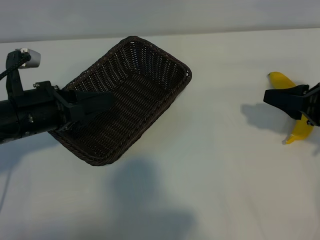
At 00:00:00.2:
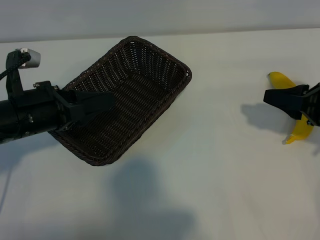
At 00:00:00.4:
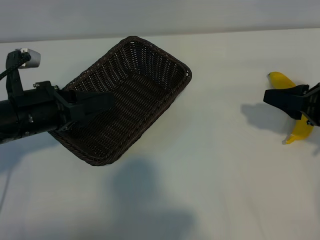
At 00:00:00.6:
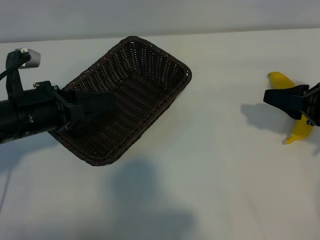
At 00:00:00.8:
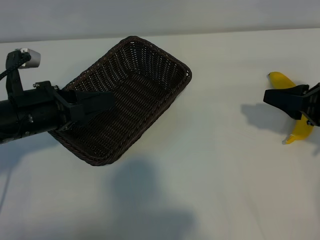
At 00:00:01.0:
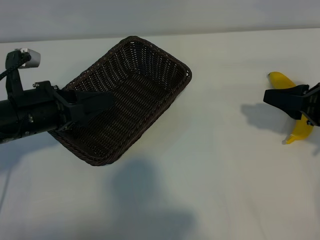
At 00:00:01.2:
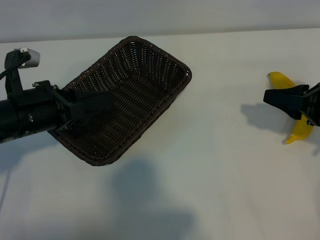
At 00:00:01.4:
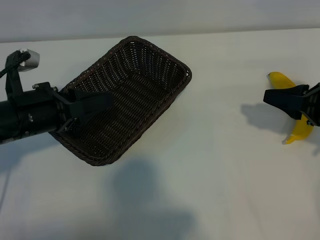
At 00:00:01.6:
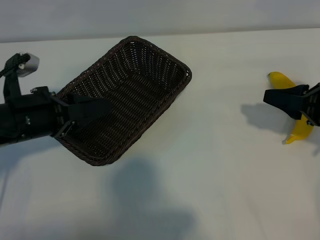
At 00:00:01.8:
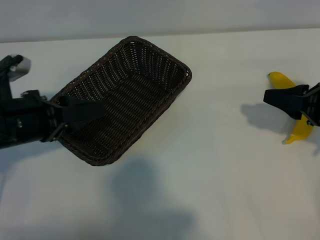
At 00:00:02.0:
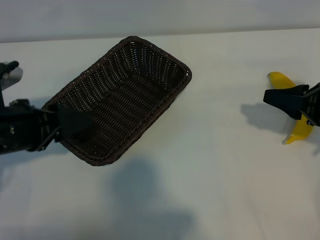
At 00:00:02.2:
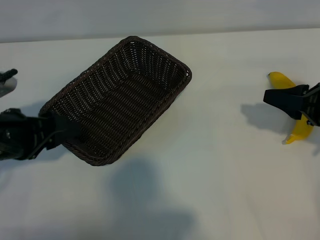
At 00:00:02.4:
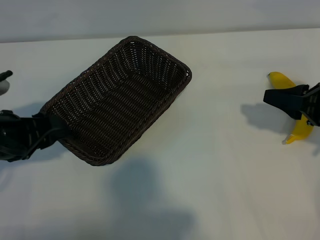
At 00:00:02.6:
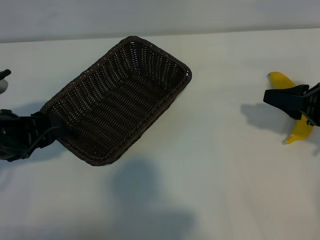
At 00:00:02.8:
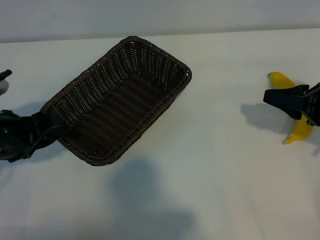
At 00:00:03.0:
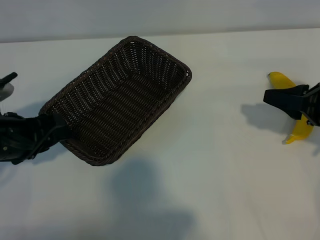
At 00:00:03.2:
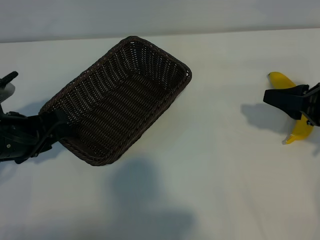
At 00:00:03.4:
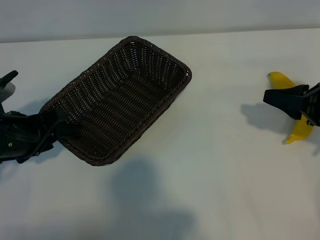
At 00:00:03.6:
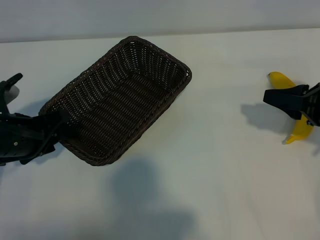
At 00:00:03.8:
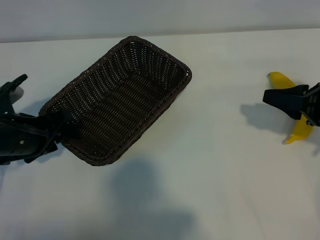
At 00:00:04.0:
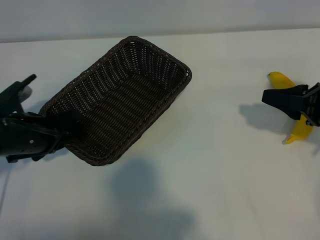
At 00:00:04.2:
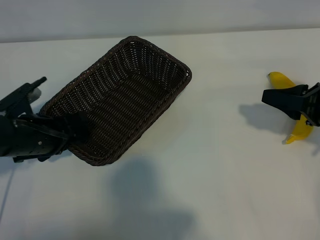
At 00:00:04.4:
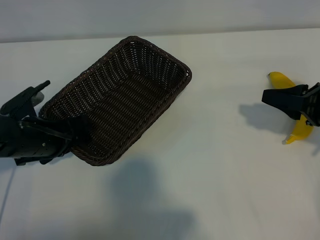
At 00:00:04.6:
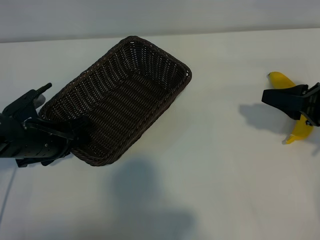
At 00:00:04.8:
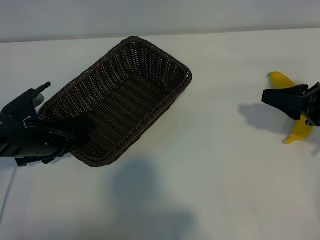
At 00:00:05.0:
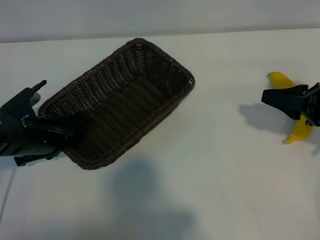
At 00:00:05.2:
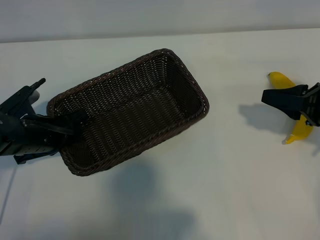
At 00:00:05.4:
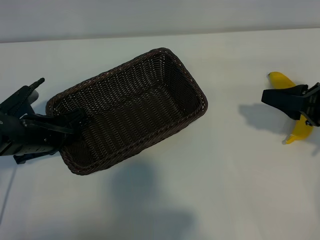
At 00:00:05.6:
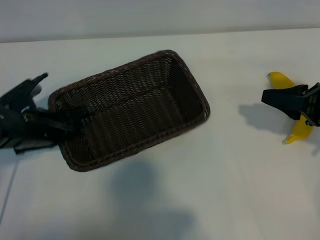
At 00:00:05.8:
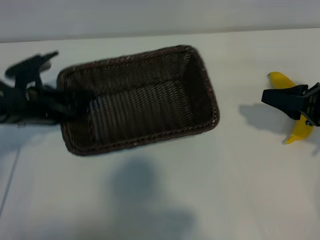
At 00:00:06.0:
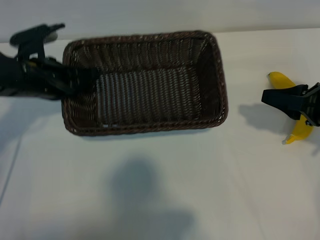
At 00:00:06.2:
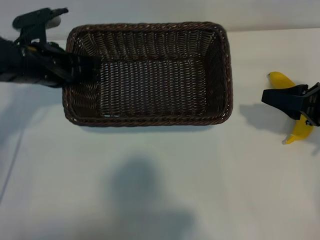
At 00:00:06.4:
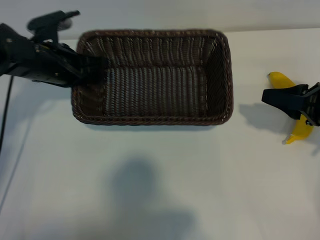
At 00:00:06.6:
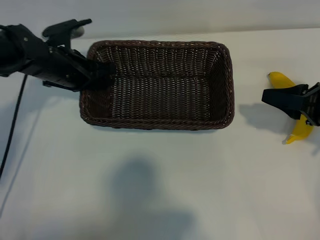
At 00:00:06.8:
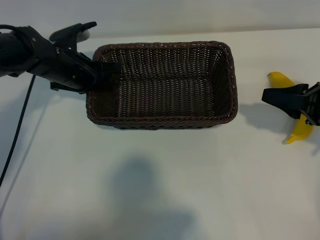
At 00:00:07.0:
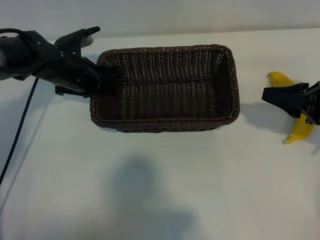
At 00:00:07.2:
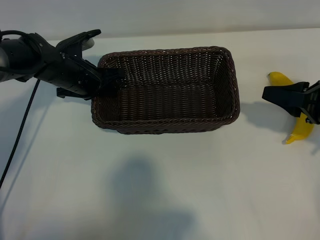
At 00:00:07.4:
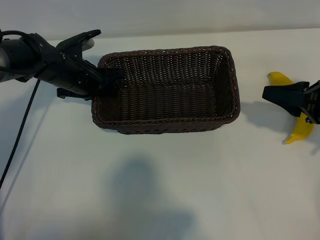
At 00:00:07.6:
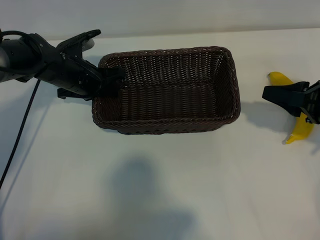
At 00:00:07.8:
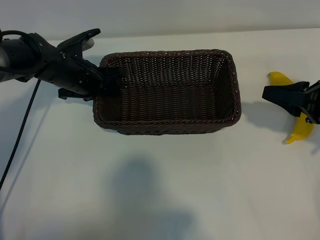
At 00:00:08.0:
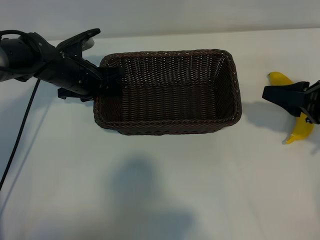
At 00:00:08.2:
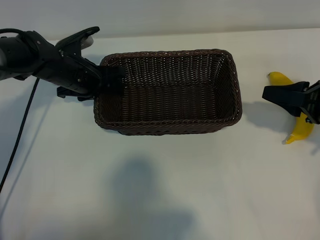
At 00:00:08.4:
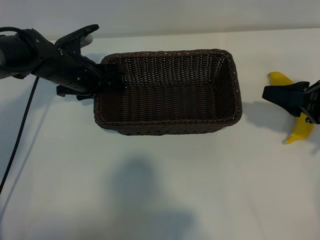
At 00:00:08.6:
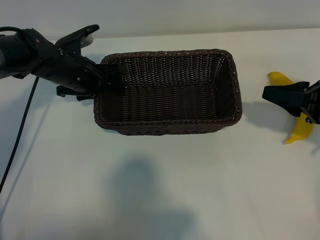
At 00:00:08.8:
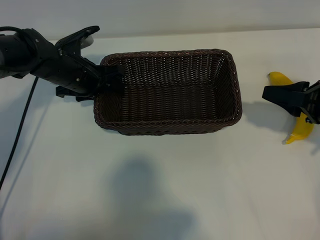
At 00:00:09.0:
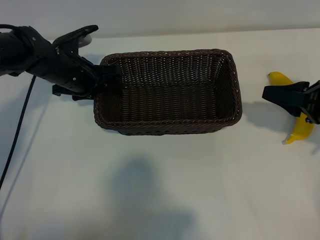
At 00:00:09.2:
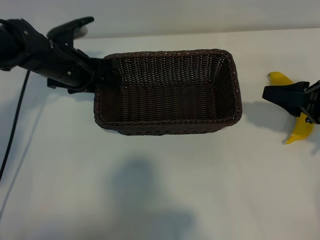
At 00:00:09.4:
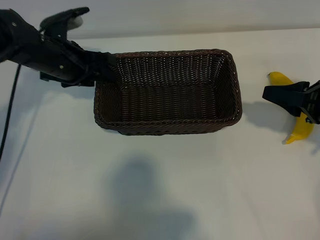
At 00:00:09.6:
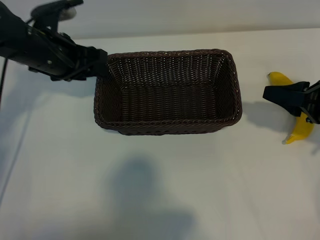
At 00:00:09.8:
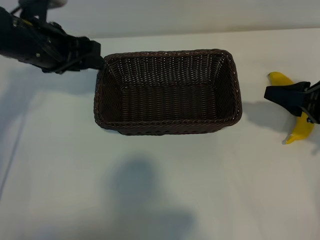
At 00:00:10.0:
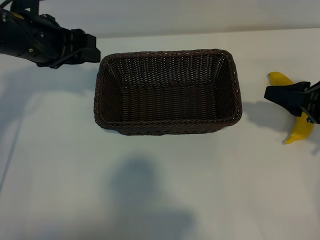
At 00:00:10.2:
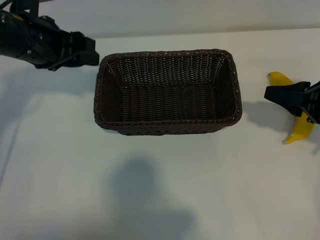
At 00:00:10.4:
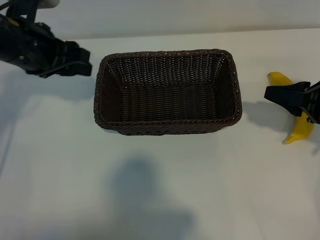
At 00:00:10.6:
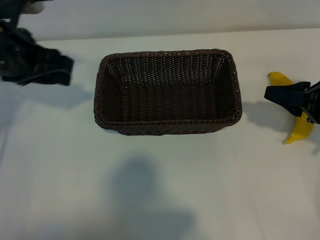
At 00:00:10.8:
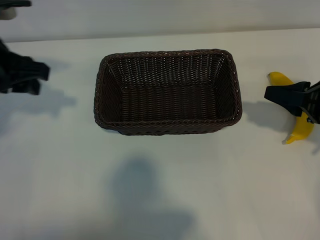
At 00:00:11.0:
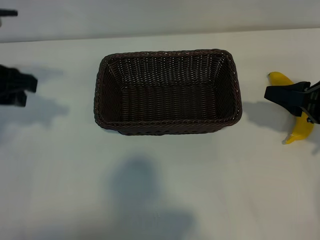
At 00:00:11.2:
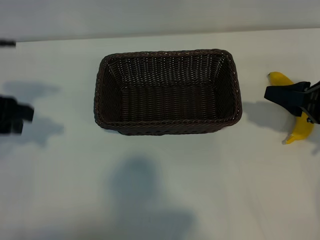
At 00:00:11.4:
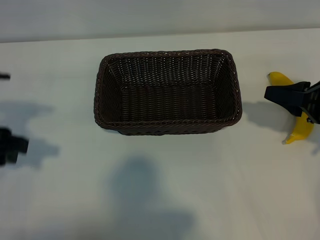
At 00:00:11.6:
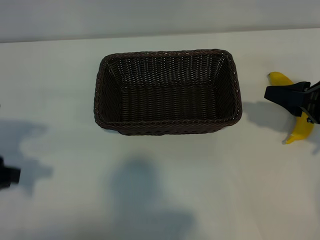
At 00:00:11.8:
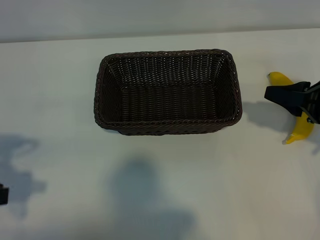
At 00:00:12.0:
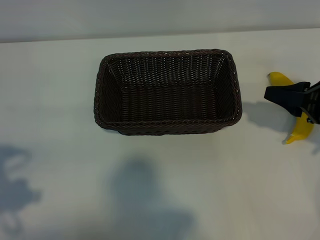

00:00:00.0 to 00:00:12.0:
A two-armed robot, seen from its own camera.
Task of the whole recording: pick up the banana and put it into the basket.
Step, 00:00:01.0 to 00:00:05.4: Grasp the basket with the left gripper.
Step, 00:00:05.6 to 00:00:09.2: Place the basket in the center of the table with the left gripper.

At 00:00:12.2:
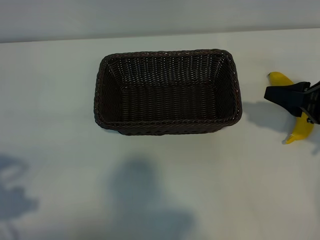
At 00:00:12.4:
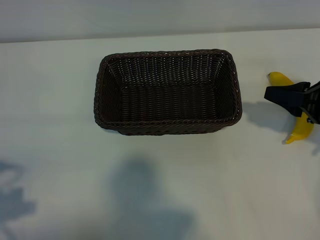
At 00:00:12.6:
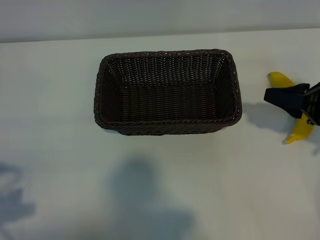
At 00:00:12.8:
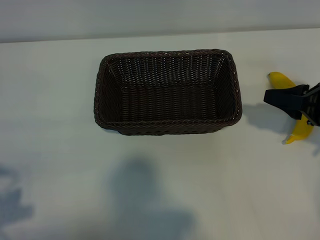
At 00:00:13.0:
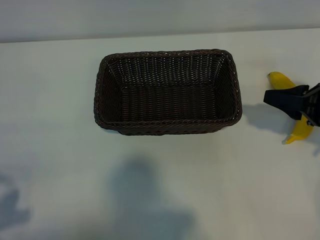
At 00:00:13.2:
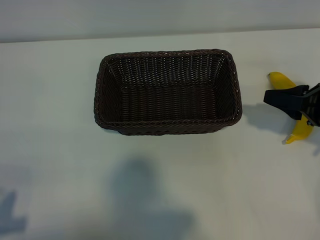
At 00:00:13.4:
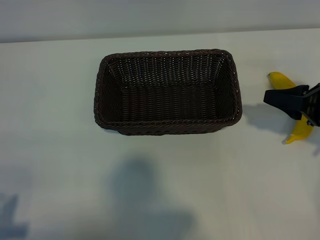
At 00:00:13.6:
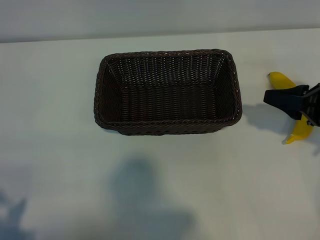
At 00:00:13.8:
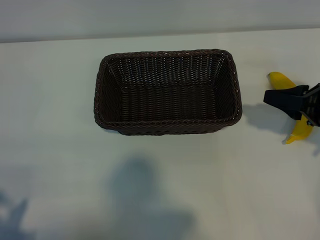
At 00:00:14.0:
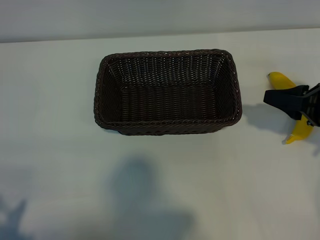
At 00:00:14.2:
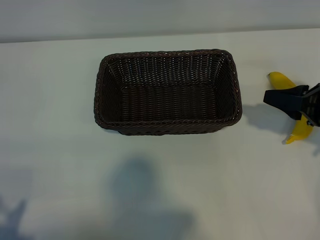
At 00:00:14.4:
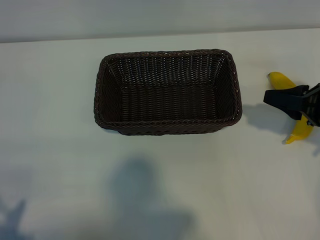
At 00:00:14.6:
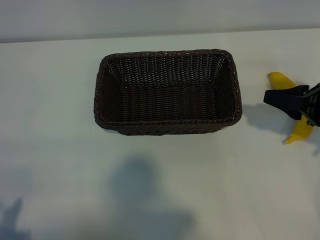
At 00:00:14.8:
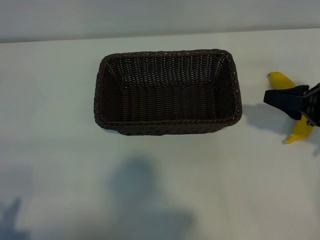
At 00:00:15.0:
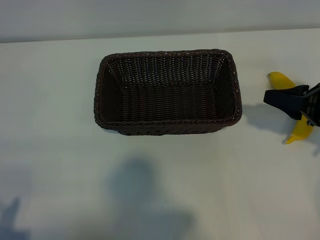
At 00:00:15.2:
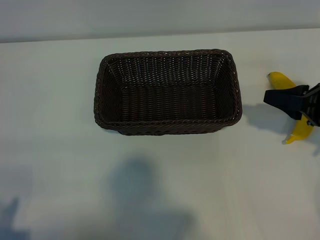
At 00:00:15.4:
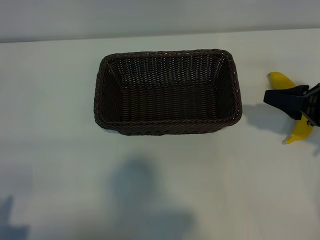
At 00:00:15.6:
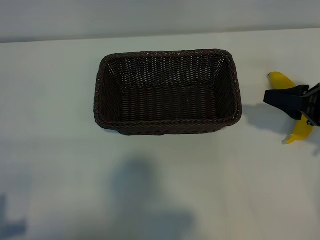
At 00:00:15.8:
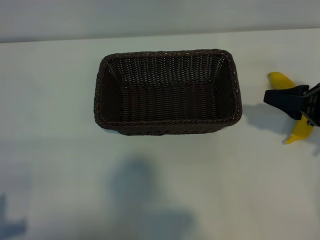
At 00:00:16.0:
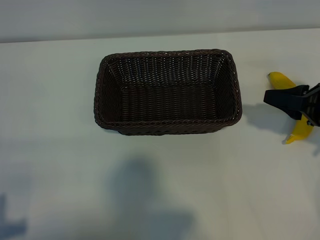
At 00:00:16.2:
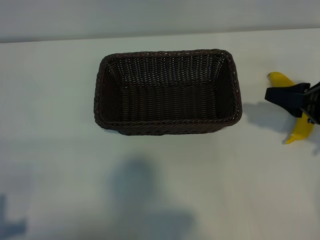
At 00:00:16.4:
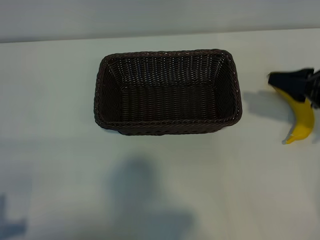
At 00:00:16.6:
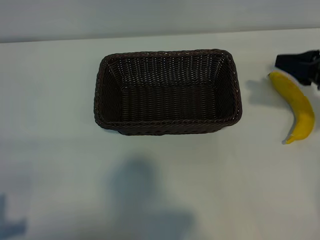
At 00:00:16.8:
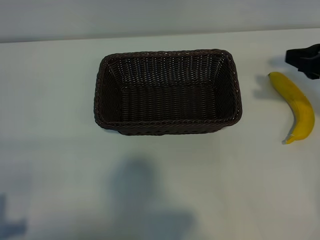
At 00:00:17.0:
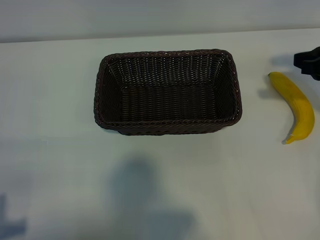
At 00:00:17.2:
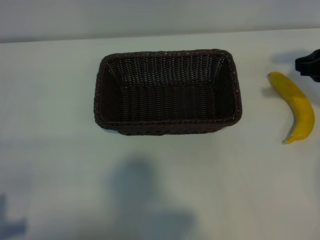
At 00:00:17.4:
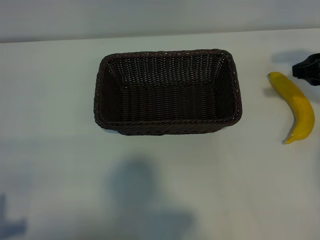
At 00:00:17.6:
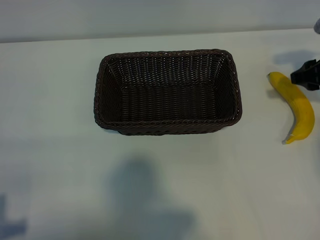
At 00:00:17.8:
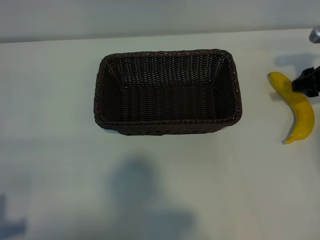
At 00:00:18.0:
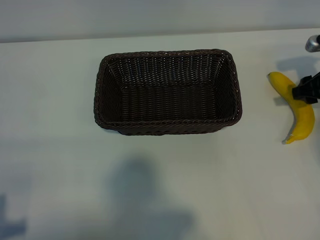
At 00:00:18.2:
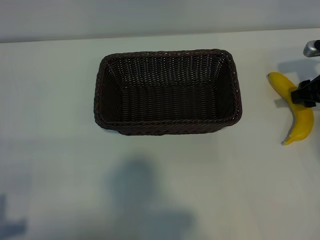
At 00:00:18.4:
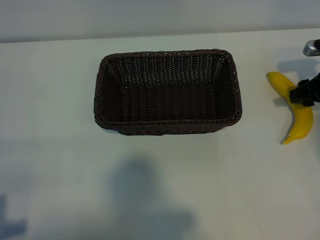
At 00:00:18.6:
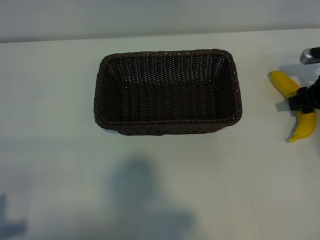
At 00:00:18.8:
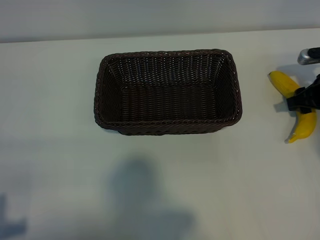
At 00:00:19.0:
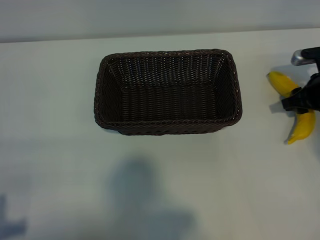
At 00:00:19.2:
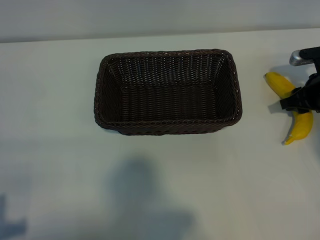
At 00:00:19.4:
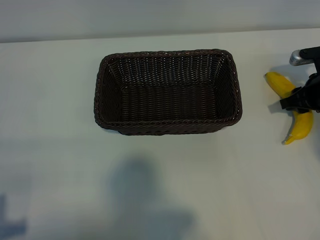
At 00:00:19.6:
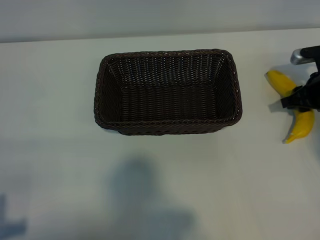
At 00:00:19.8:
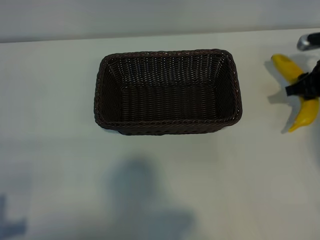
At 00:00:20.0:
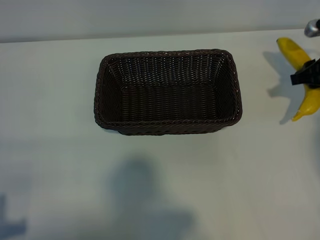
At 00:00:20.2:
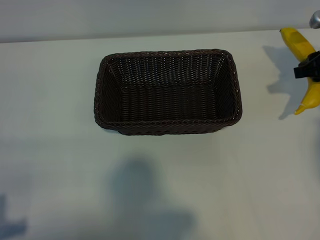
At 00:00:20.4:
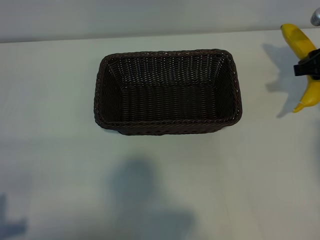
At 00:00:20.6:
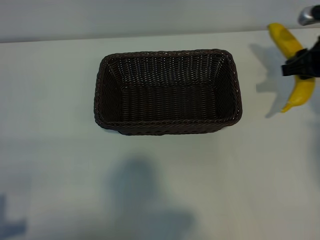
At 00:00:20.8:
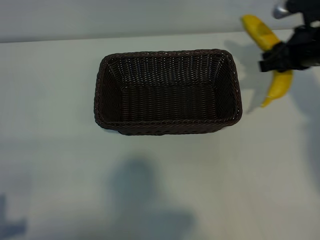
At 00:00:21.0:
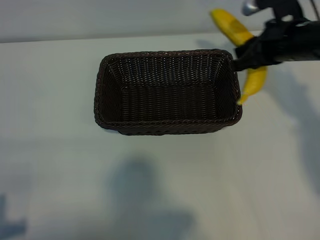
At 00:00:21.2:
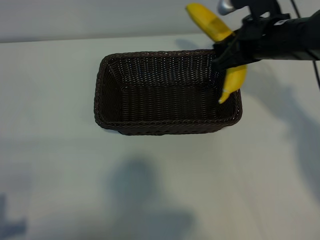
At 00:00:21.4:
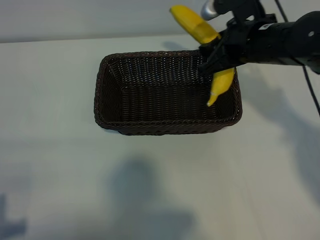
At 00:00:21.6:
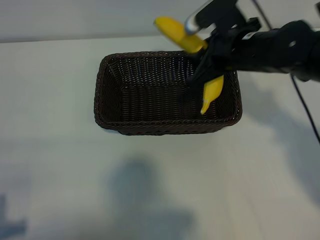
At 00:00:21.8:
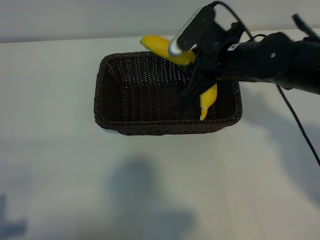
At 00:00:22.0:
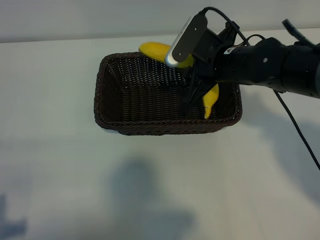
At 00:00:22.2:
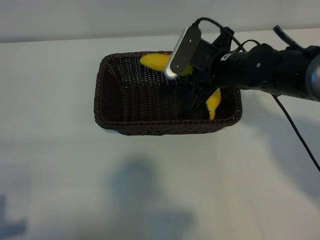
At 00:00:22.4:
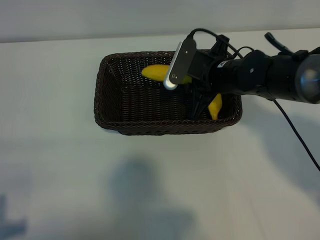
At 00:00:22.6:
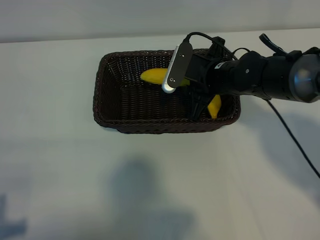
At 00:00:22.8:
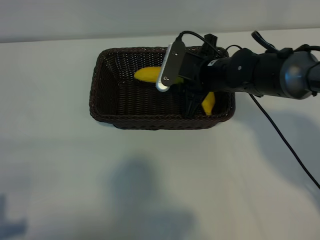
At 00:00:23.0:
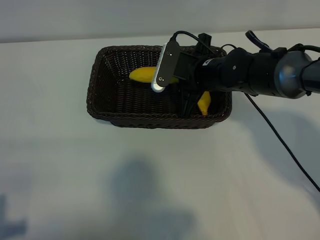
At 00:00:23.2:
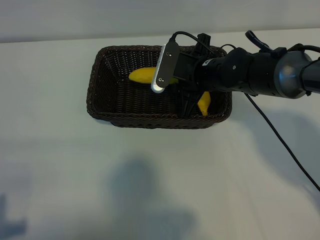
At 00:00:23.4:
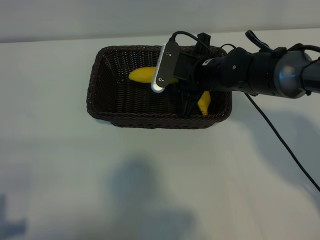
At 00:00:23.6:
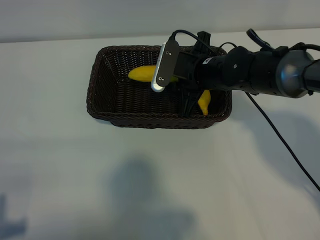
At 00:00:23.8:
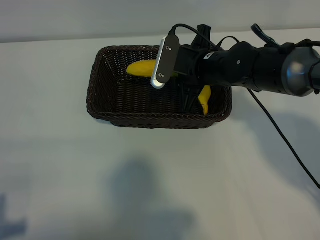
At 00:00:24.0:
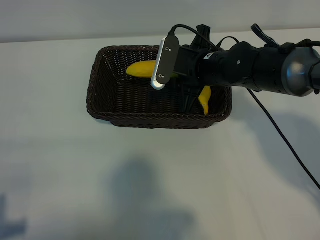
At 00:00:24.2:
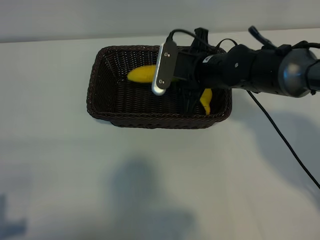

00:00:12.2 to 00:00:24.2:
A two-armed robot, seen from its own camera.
Task of the whole recording: pick up the banana and put it into the basket.
Step, 00:00:12.2 to 00:00:19.2: Grasp the banana with right gripper.
